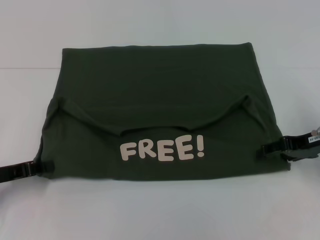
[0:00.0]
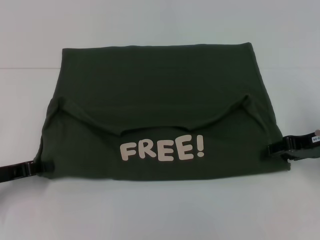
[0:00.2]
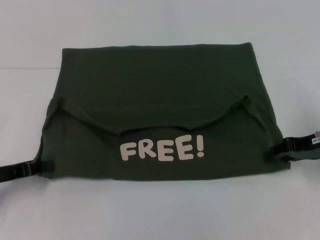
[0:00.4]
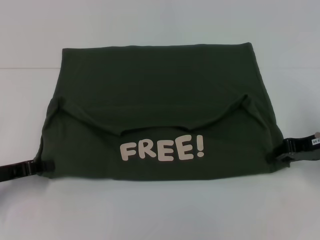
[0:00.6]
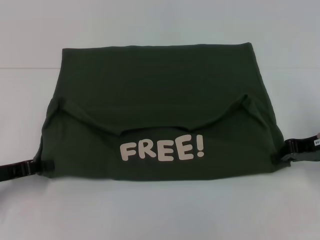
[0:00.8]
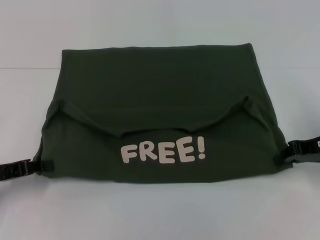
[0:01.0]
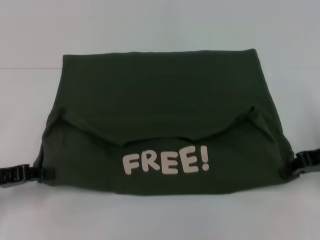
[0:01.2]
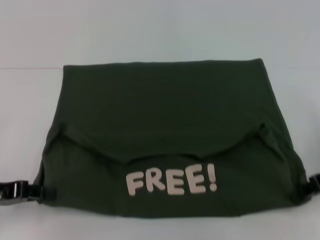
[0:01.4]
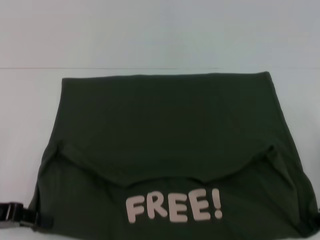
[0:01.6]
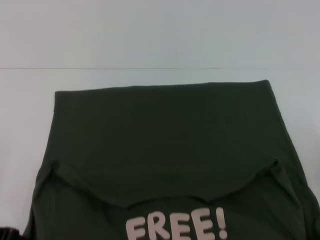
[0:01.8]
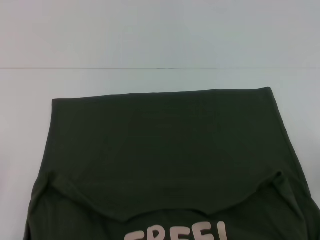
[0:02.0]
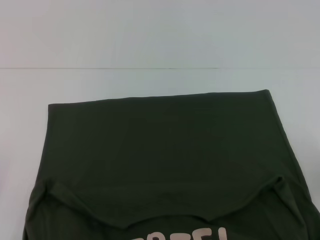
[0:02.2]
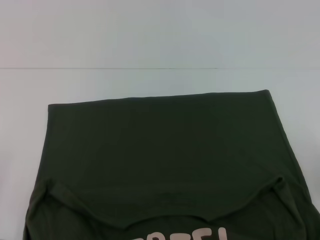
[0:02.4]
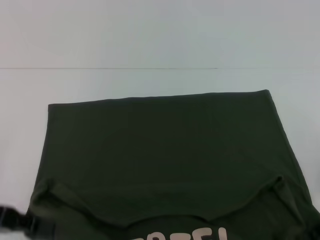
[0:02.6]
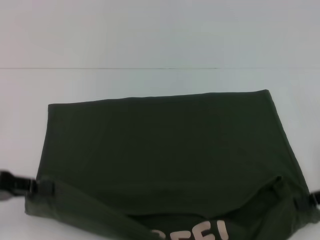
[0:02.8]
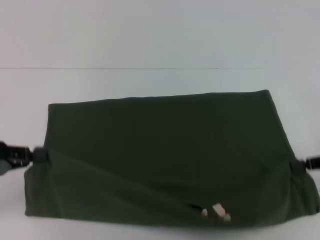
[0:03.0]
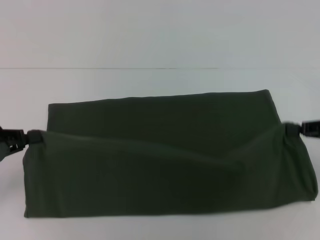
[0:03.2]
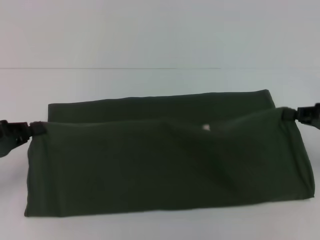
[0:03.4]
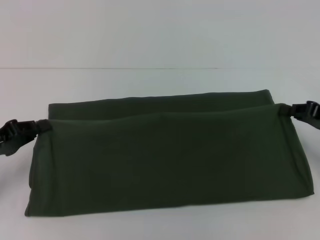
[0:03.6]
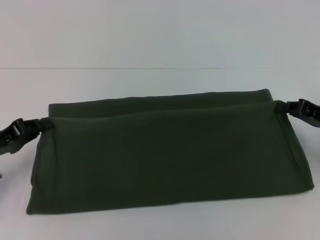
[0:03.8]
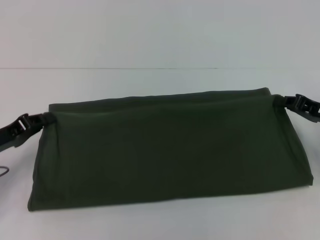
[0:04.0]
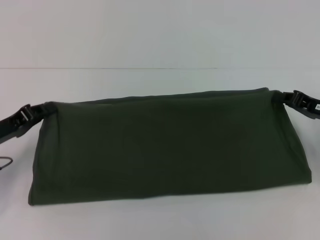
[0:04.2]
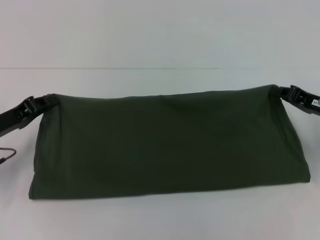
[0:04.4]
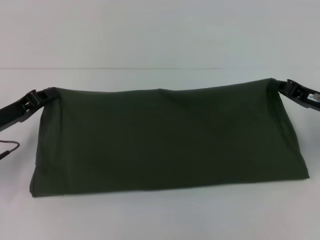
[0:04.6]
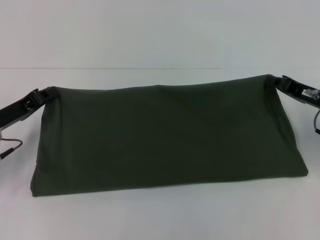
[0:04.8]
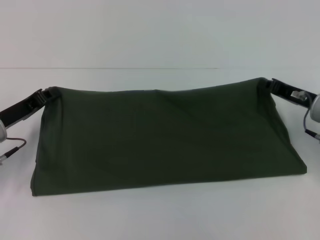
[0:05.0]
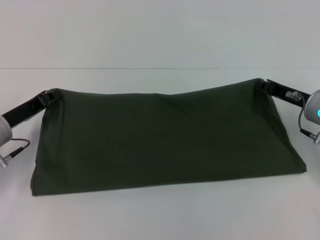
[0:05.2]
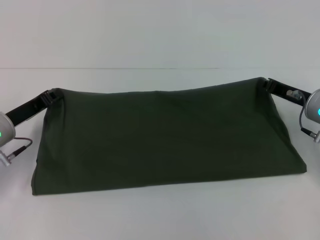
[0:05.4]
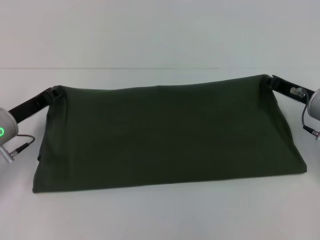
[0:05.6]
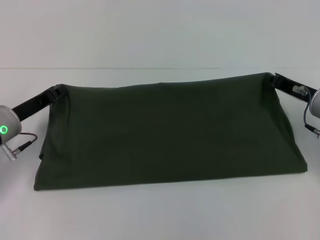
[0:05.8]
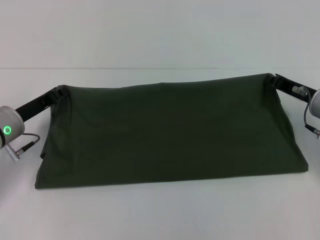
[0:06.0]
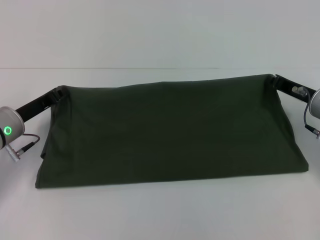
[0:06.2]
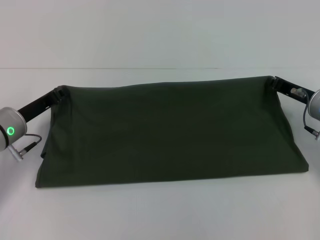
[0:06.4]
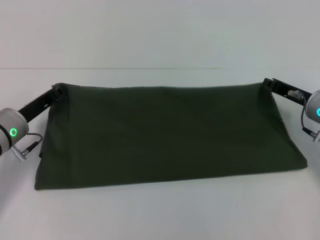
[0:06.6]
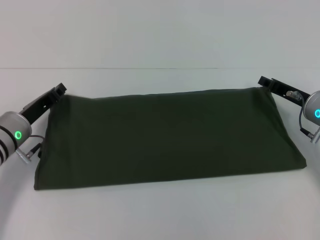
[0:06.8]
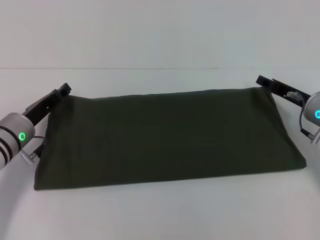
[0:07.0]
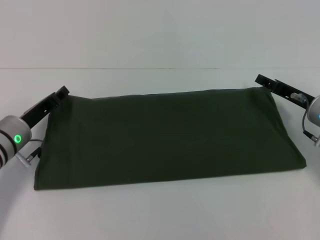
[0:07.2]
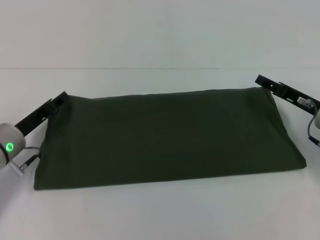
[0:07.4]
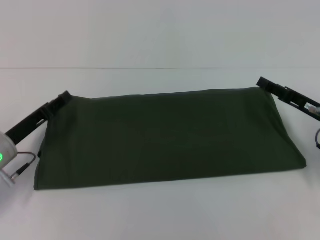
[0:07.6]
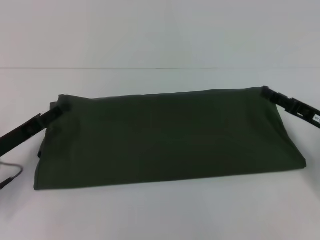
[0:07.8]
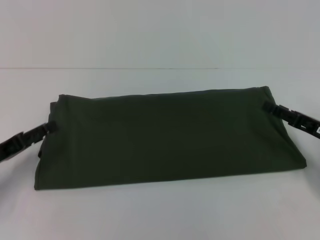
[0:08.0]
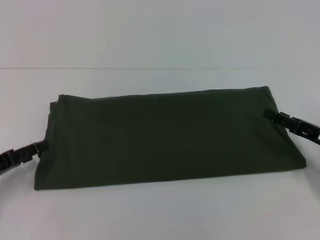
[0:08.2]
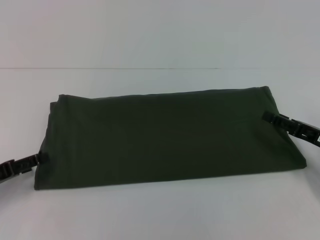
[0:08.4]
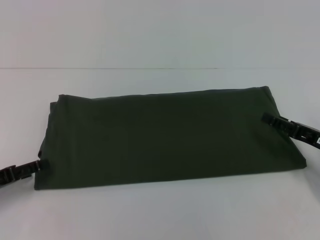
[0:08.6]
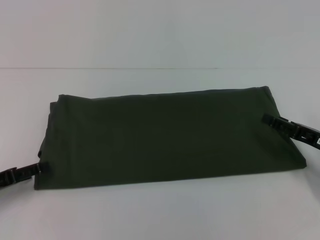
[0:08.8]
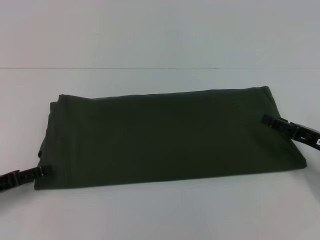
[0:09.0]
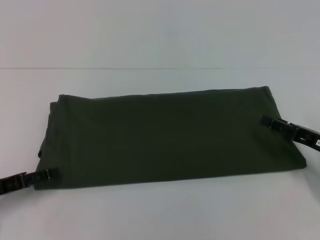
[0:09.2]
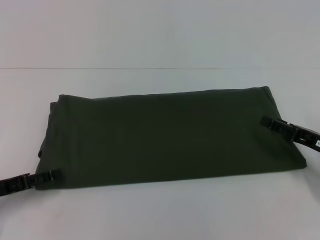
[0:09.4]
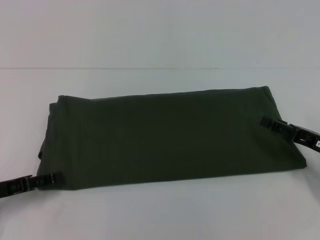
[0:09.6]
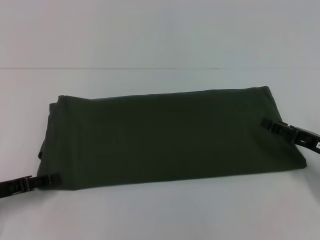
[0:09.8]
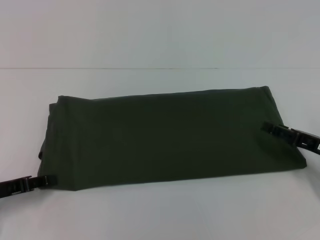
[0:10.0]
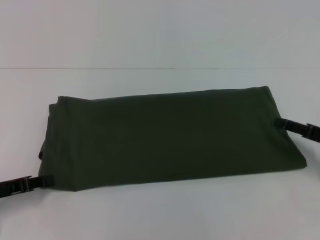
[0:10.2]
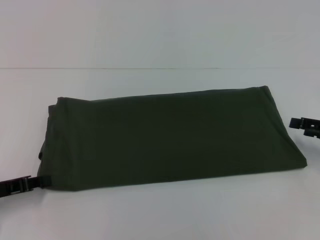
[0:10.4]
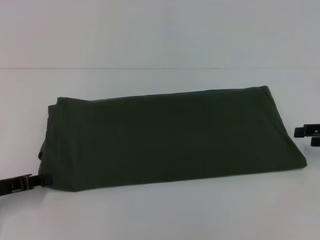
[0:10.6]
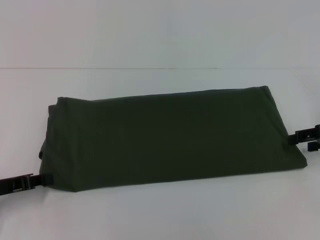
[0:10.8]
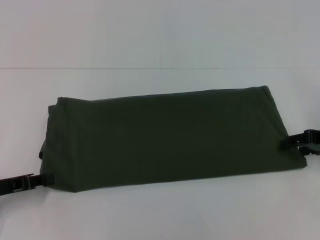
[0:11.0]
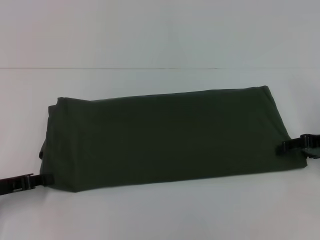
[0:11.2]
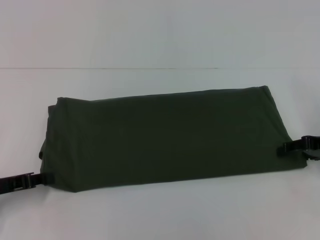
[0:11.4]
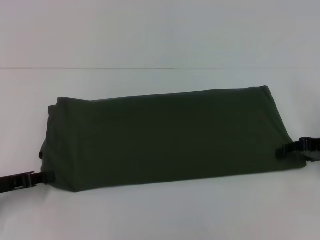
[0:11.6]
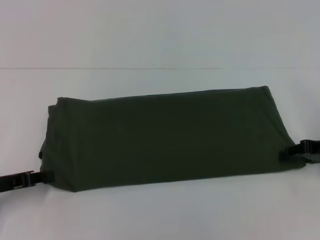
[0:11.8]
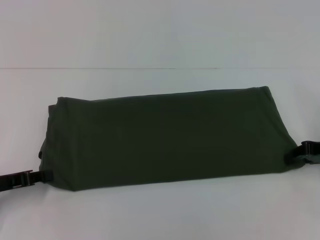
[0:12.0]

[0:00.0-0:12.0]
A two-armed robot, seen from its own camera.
Step, 0:00.0 to 0:02.0: Pull the clothes with your left hand.
Step, 0:00.0 to 0:02.0: Pull the clothes with your right hand.
Step, 0:02.2 to 0:10.4: Fold the clothes with your left hand.
Step, 0:02.2 to 0:10.4: Fold the clothes with your right hand.
0:00.0 to 0:01.6: The right gripper travels backward by roughly 5 cm, and closes up, while the left gripper changes place by about 5 cm.
0:03.0 to 0:04.4: The right gripper travels forward and downward by approximately 10 cm, while the left gripper travels downward and forward by approximately 10 cm.
0:04.4 to 0:06.0: The left gripper shifts by some 5 cm.
0:06.0 to 0:07.6: The right gripper shifts by approximately 5 cm, and opens up. The left gripper opens its fingers.
0:07.6 to 0:09.0: The left gripper shifts some 10 cm to the left and backward, and opens up. Meanwhile the right gripper shifts by about 5 cm.
0:09.0 to 0:10.4: The right gripper ends up roughly 5 cm from where it was; the left gripper closes up.

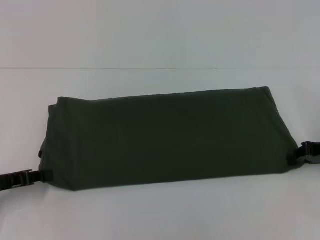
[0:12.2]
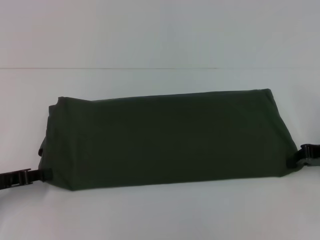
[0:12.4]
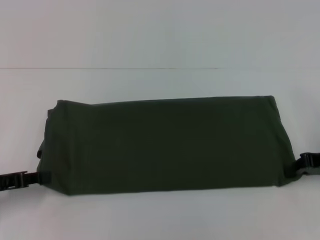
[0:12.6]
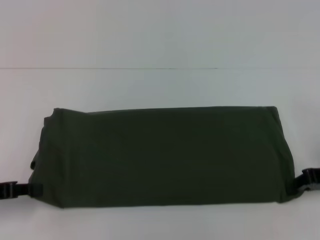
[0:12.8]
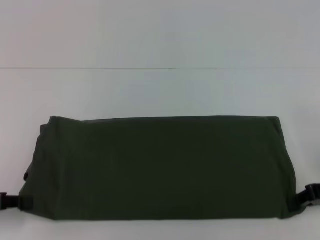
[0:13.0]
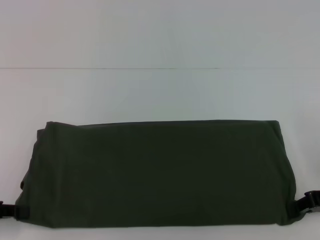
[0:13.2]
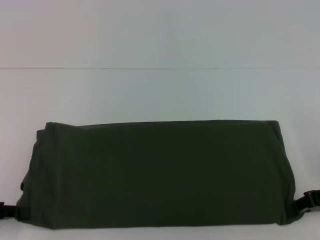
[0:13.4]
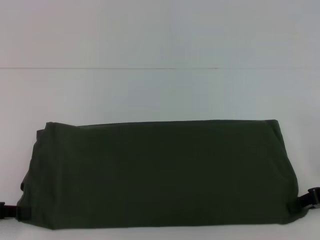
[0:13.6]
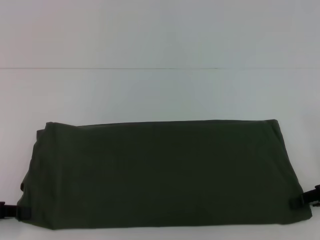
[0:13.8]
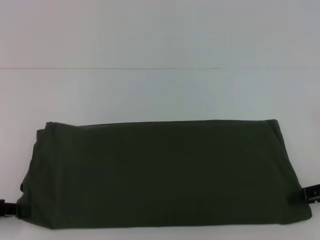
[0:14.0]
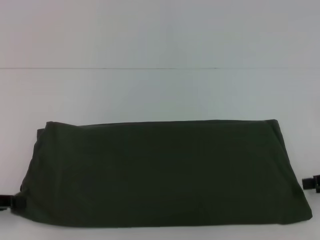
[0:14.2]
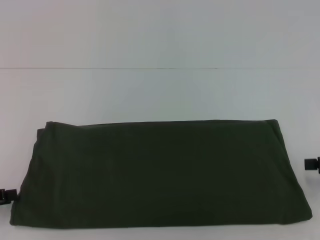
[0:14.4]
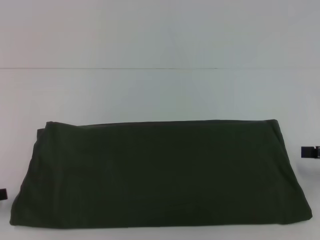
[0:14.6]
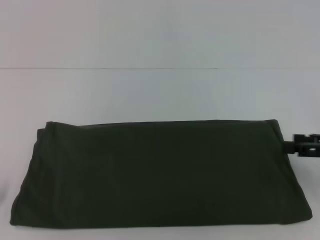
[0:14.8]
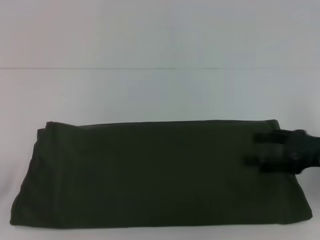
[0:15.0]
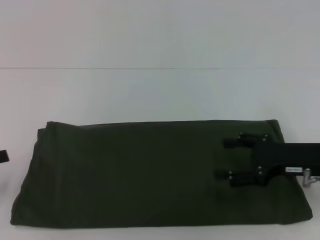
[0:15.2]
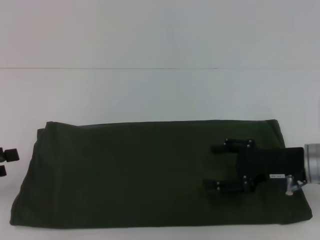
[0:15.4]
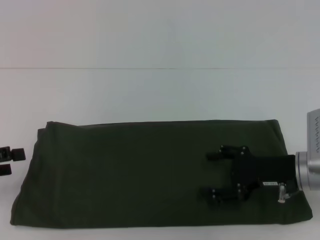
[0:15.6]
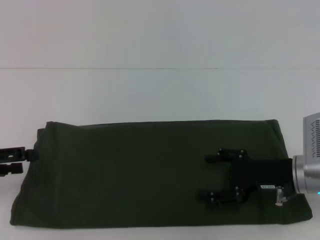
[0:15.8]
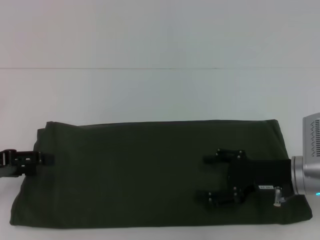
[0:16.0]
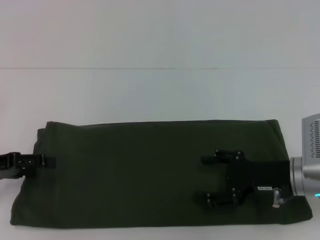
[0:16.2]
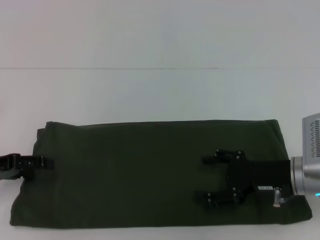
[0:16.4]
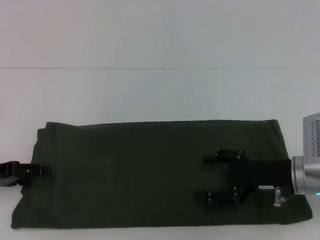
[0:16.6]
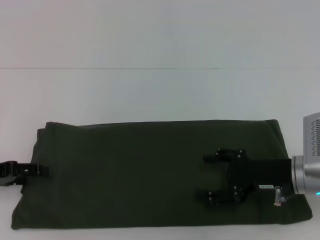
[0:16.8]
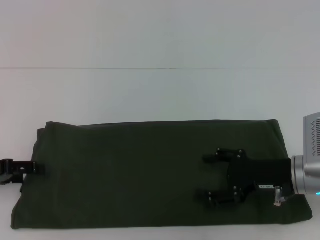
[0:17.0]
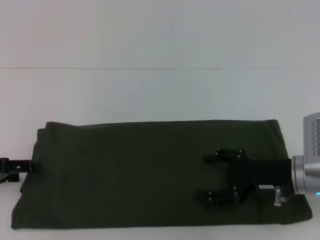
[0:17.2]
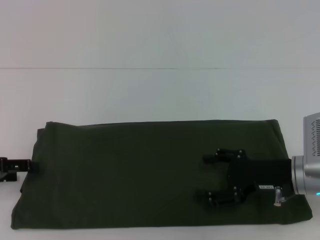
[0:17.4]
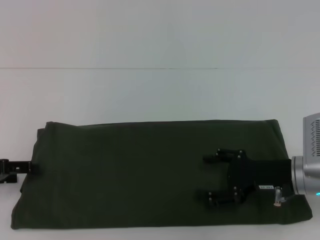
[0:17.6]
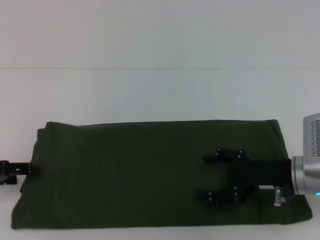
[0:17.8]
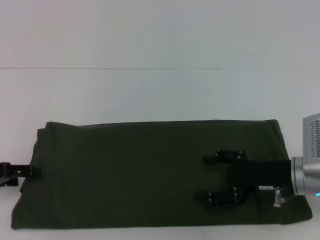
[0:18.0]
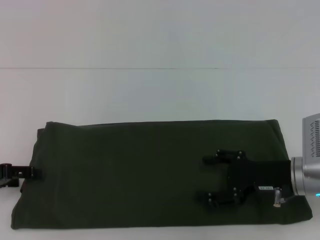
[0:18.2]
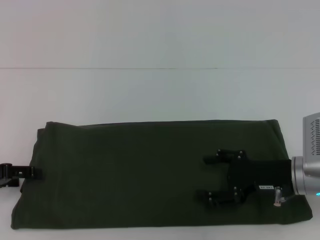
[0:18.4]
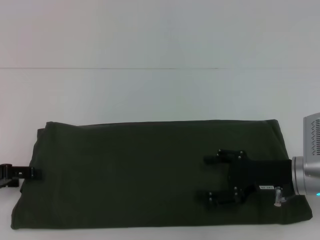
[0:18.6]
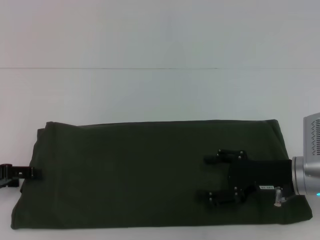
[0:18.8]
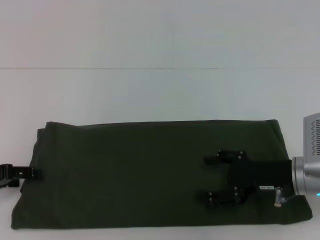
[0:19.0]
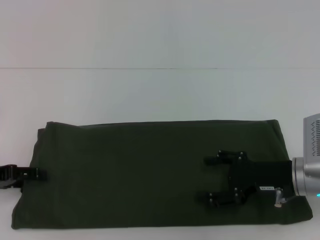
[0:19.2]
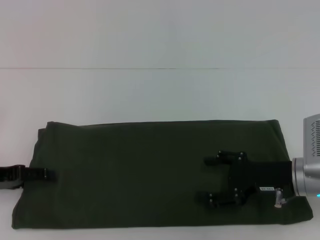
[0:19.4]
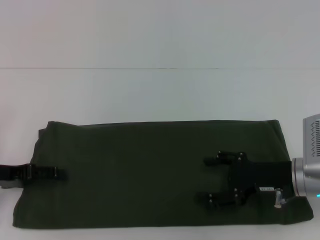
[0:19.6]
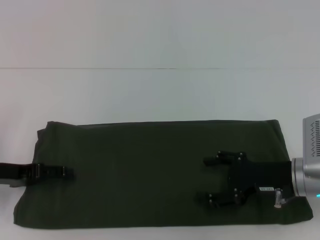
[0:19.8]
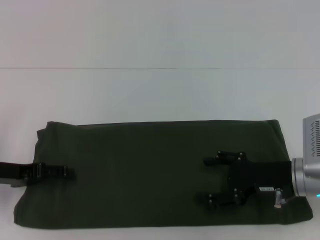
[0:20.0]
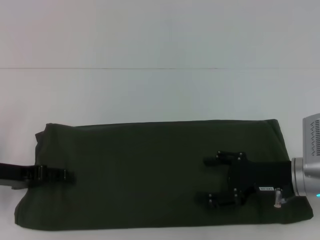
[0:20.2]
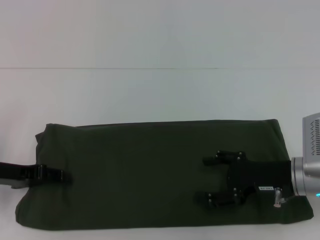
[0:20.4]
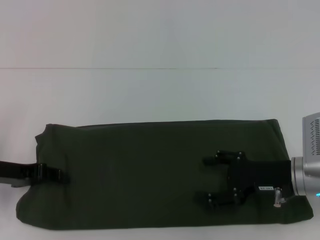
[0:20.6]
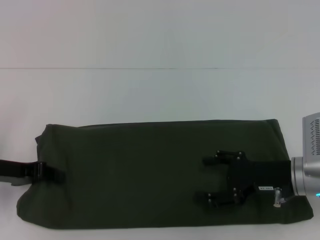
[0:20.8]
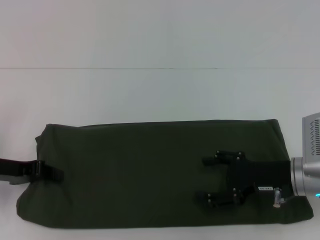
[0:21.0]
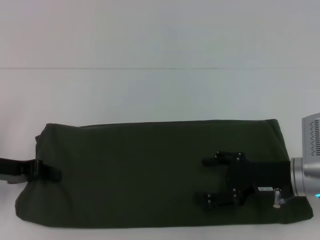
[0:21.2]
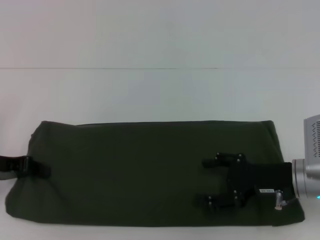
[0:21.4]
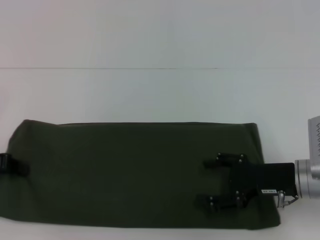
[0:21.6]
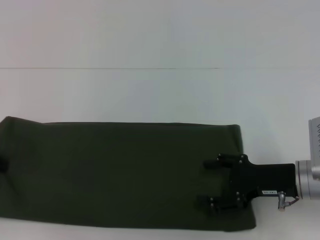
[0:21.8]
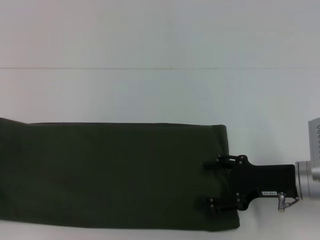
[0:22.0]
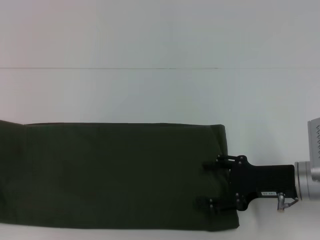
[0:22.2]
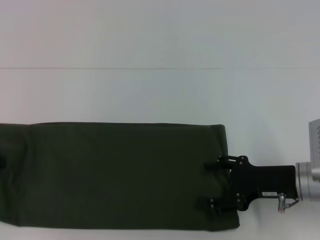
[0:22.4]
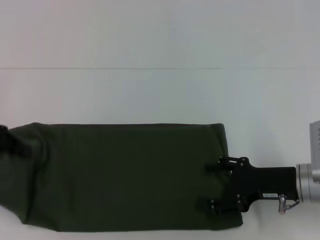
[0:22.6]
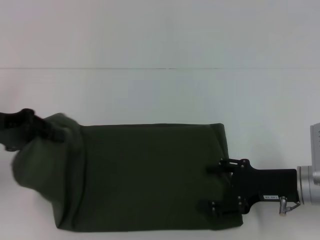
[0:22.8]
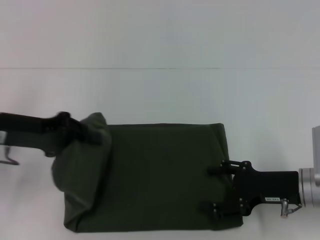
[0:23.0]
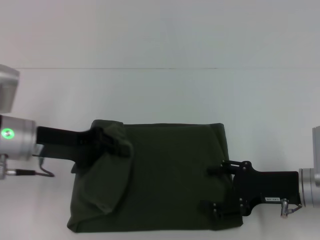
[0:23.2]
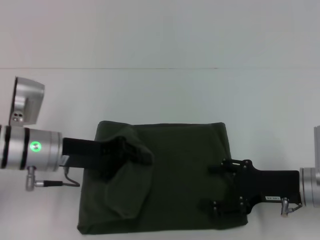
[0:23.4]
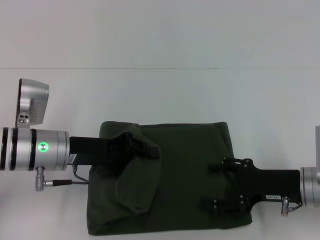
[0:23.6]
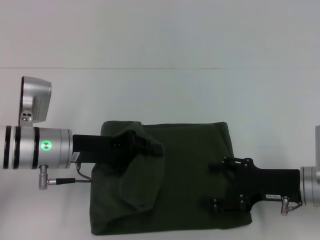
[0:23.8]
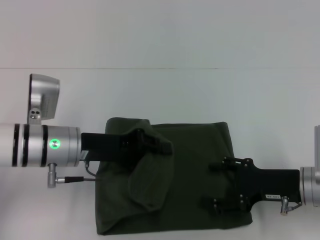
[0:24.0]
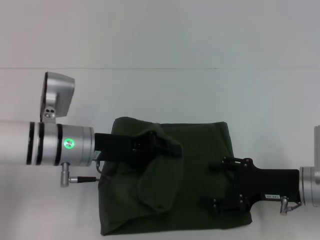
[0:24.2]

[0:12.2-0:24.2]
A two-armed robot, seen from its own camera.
Step, 0:12.2 to 0:15.0: Pull the clothes with your left hand.
Step, 0:12.2 to 0:15.0: Pull the clothes with your right hand.
0:12.2 to 0:13.8: The right gripper shifts about 5 cm backward, while the left gripper shifts by roughly 5 cm.
0:13.8 to 0:15.2: The right gripper shifts approximately 10 cm to the left, and opens. Meanwhile the left gripper shifts by about 5 cm, and opens up.
0:15.2 to 0:16.6: The left gripper moves forward and to the right, some 10 cm.
0:18.2 to 0:19.8: There are only small adjustments of the grippers.
0:19.8 to 0:21.2: The left gripper closes up.
0:21.2 to 0:22.6: The left gripper heads upward, covering some 10 cm.
0:22.6 to 0:24.2: The left gripper heads to the right, covering some 20 cm.
